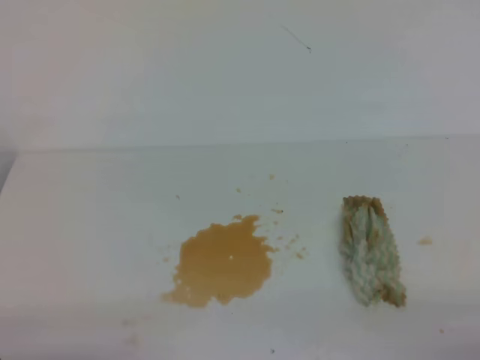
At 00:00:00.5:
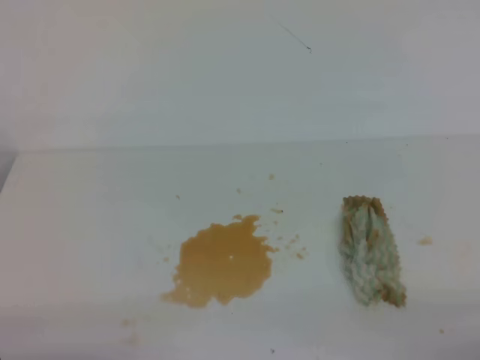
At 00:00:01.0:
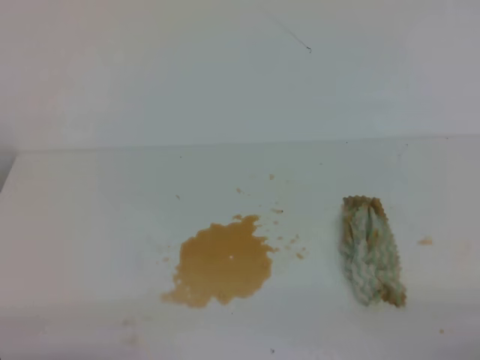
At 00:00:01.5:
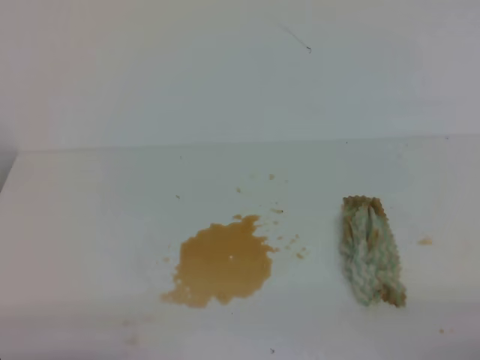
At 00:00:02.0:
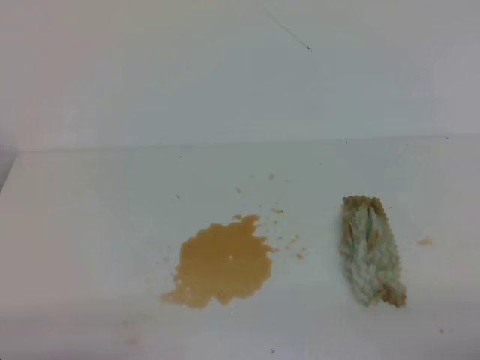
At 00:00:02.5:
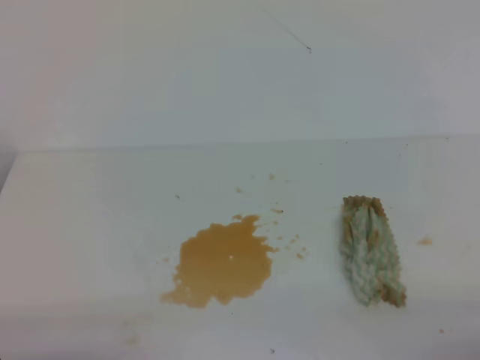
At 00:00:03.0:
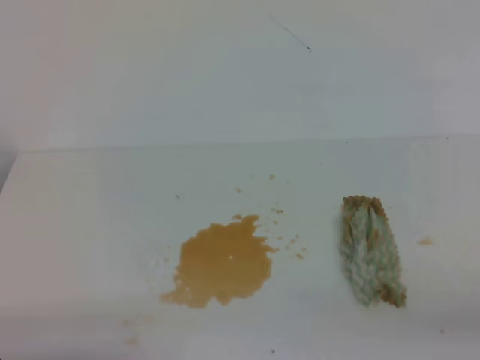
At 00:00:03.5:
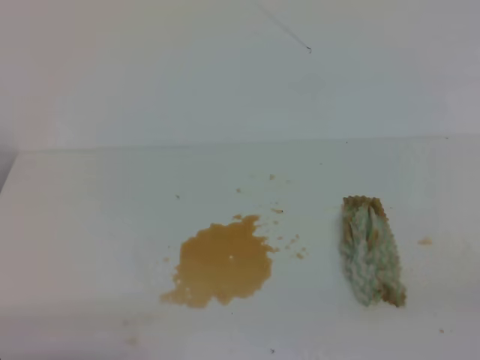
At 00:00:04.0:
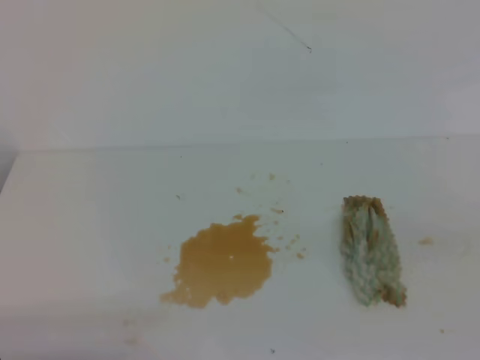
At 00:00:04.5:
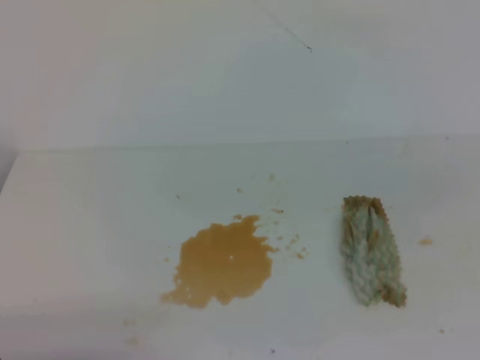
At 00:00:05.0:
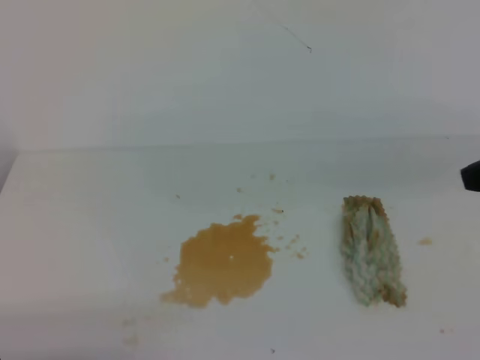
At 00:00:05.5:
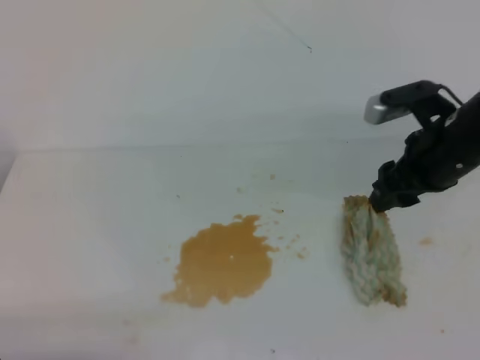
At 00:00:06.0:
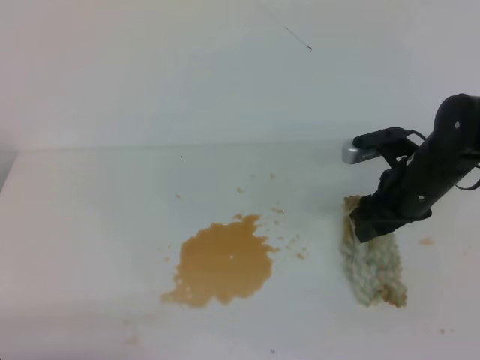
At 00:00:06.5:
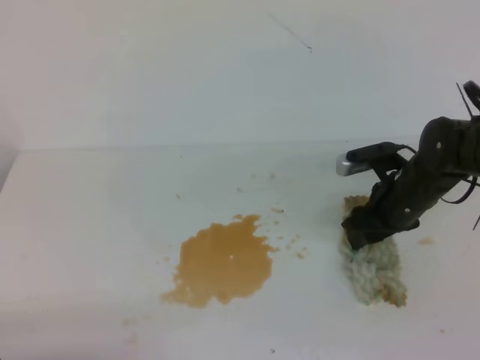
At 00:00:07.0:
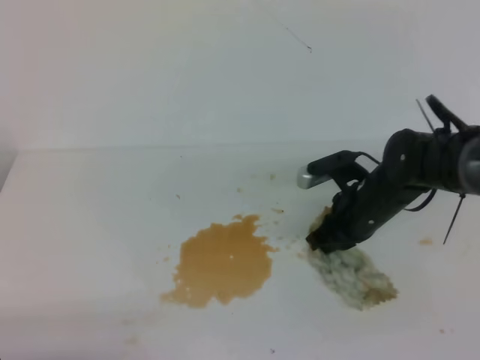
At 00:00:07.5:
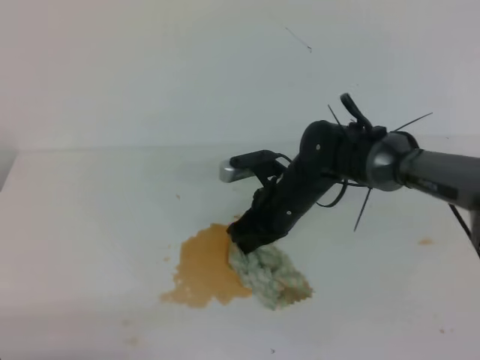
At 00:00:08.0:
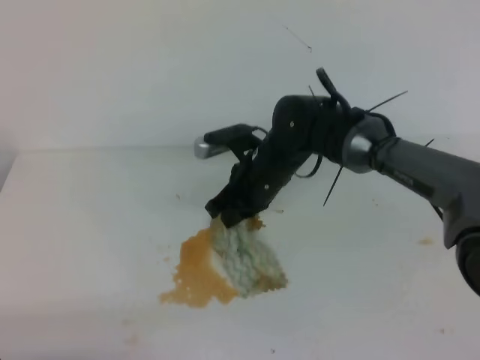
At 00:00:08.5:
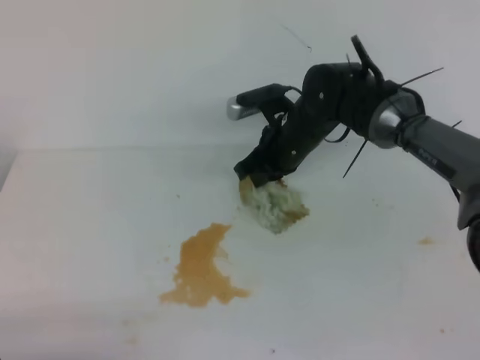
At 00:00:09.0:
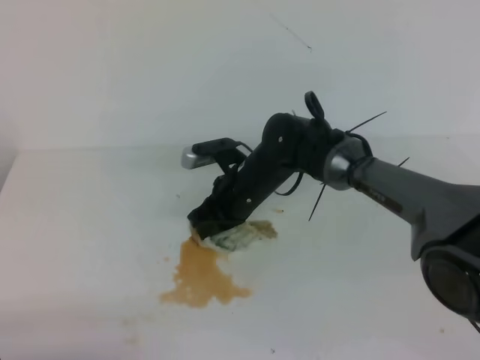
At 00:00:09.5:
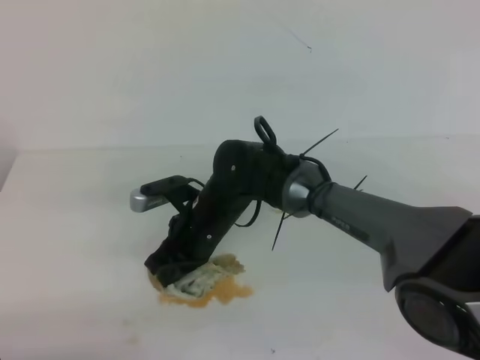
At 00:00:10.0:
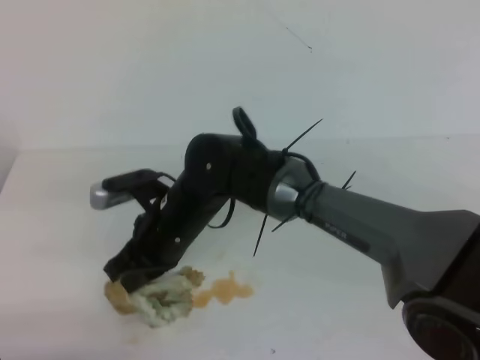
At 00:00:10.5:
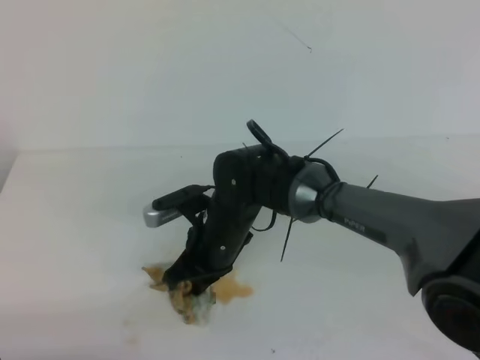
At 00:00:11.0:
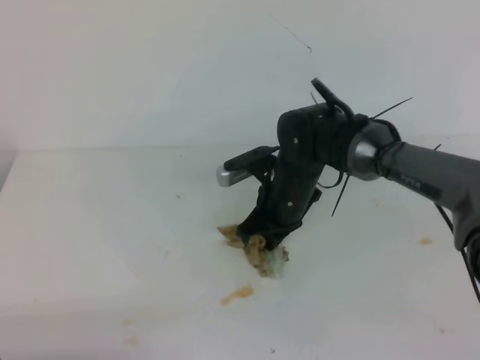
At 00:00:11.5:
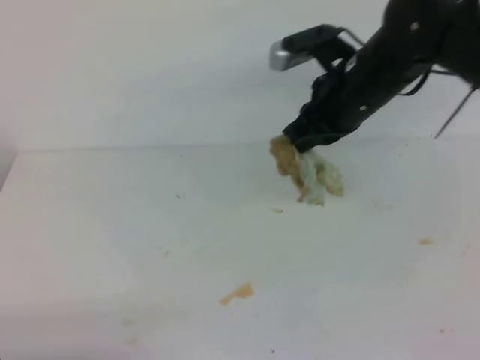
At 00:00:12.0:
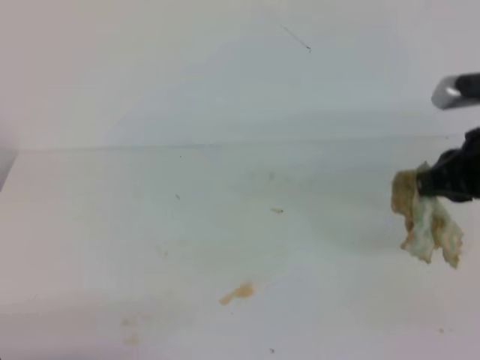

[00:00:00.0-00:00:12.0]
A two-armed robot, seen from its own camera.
00:00:00.0 to 00:00:02.0: Both grippers stay about where they are.
00:00:04.0 to 00:00:06.0: The right gripper heads forward and downward, covering about 35 cm, and opens up.
00:00:06.0 to 00:00:08.0: The right gripper is displaced to the left by some 20 cm, and closes.
00:00:08.0 to 00:00:10.0: The right gripper shifts some 10 cm to the left and backward.
00:00:10.0 to 00:00:12.0: The right gripper moves to the right, approximately 30 cm.

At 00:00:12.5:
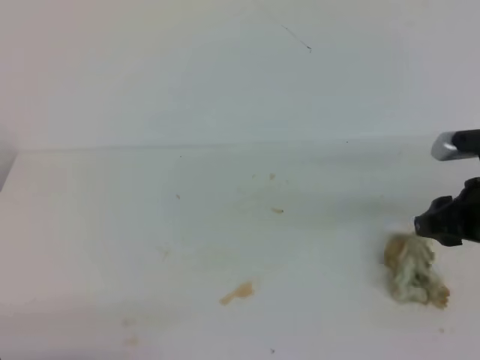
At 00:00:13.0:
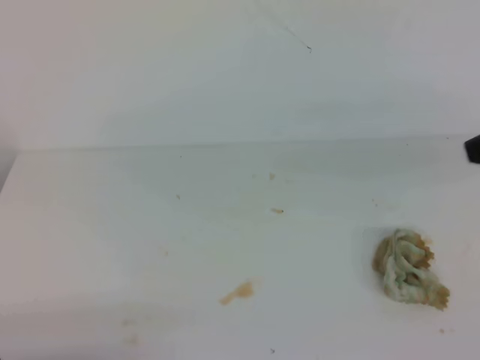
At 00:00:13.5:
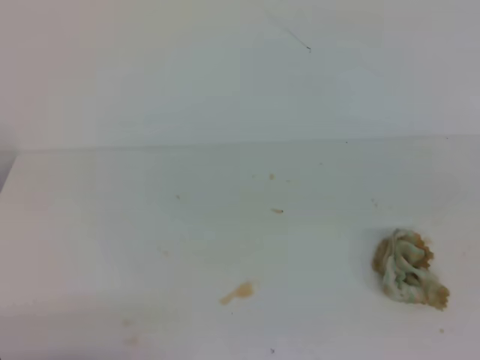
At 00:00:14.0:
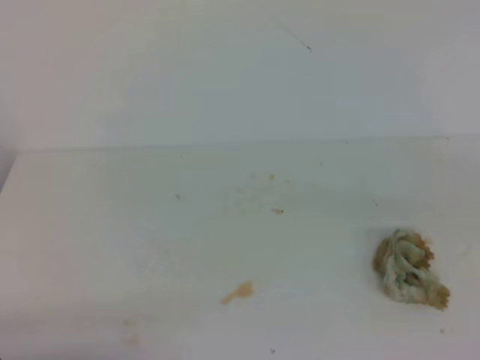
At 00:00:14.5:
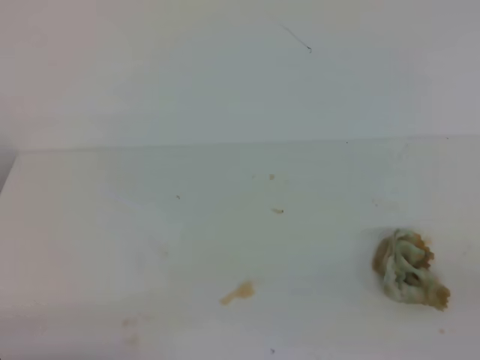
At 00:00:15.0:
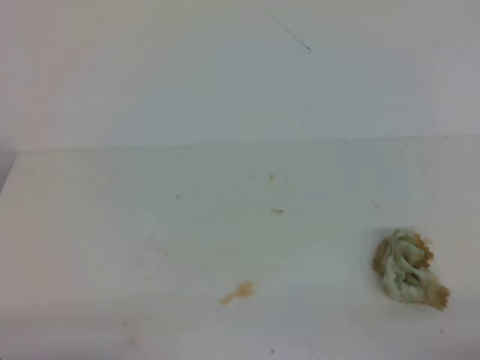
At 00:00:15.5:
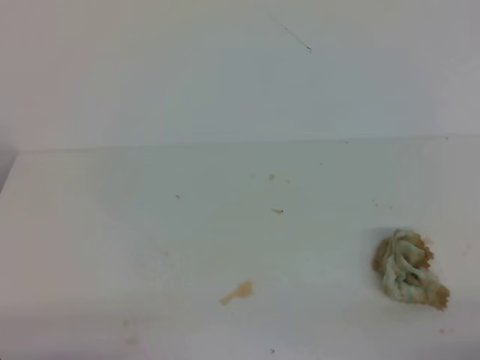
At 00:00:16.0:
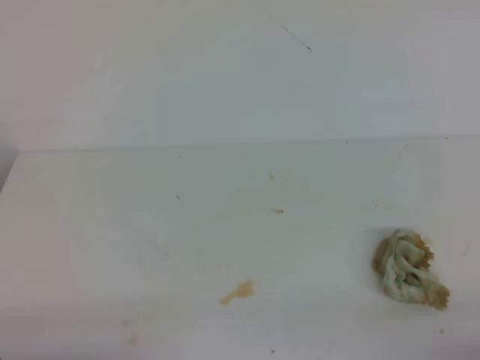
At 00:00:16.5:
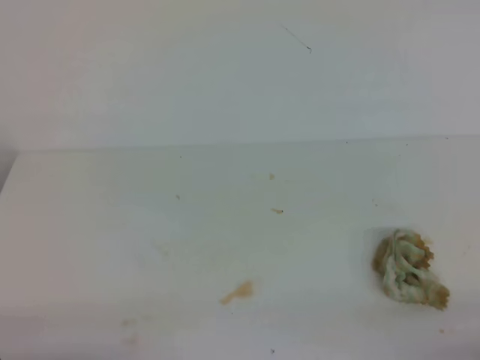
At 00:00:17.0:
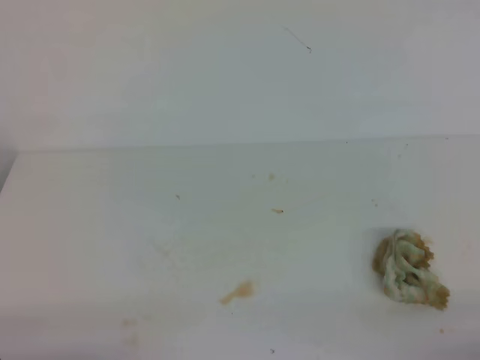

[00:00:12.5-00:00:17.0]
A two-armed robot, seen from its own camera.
00:00:12.5 to 00:00:14.5: The right gripper travels backward by roughly 25 cm, and closes its fingers.
